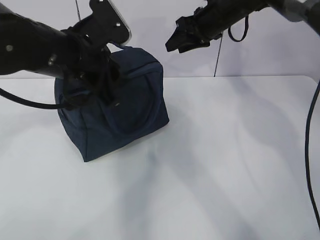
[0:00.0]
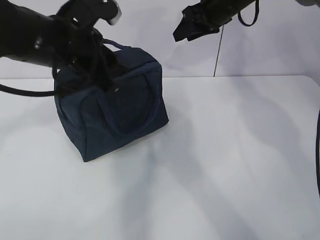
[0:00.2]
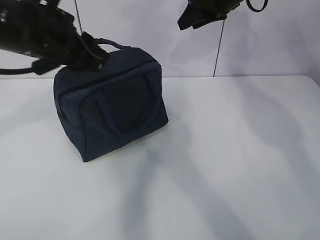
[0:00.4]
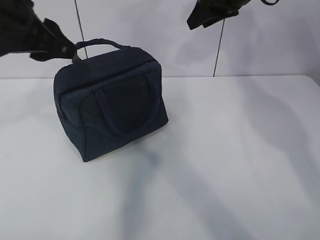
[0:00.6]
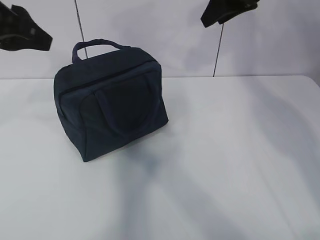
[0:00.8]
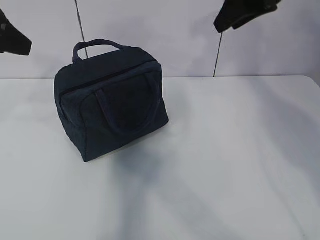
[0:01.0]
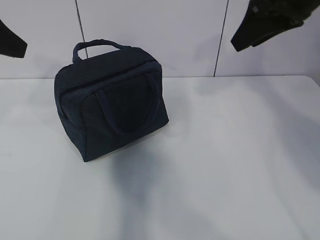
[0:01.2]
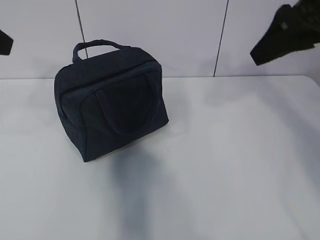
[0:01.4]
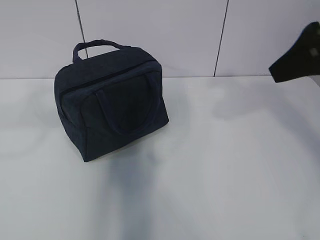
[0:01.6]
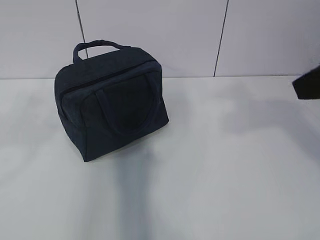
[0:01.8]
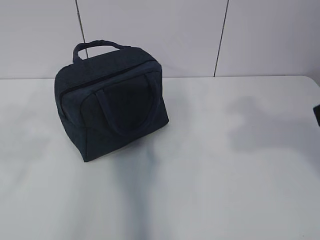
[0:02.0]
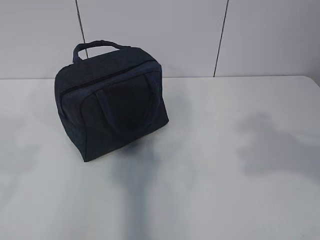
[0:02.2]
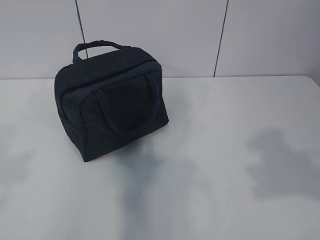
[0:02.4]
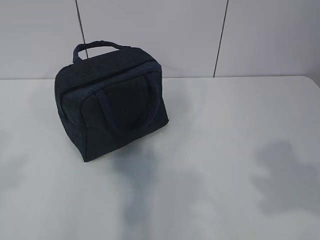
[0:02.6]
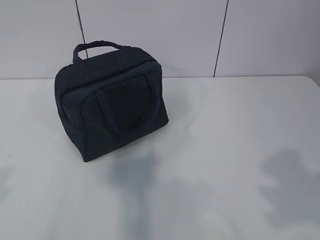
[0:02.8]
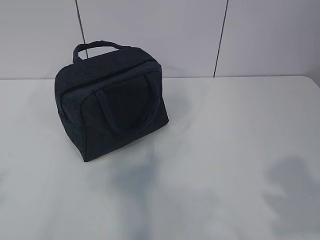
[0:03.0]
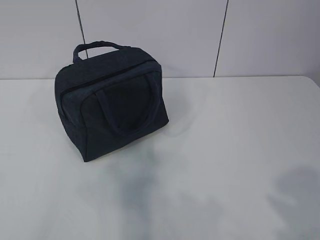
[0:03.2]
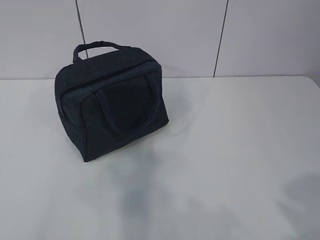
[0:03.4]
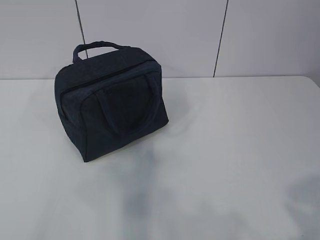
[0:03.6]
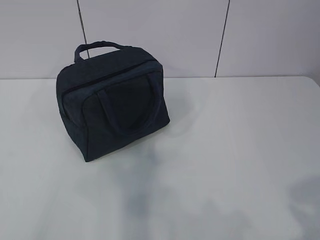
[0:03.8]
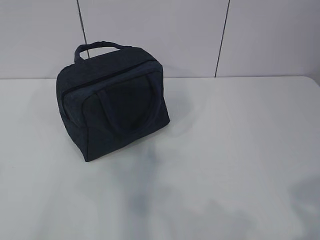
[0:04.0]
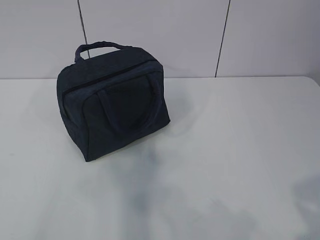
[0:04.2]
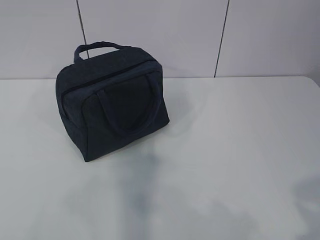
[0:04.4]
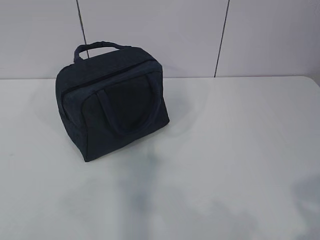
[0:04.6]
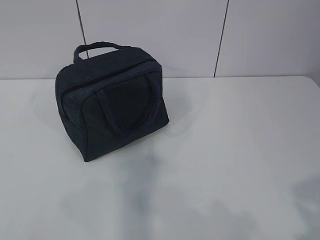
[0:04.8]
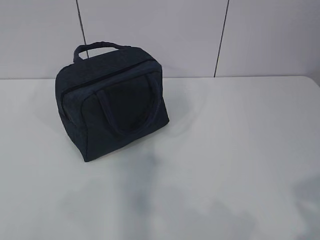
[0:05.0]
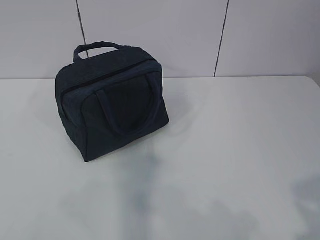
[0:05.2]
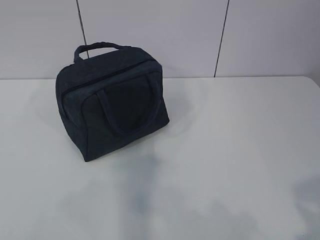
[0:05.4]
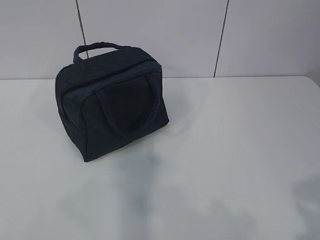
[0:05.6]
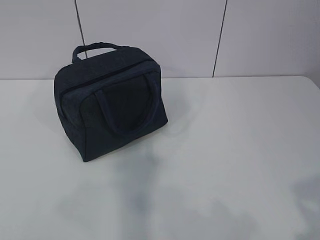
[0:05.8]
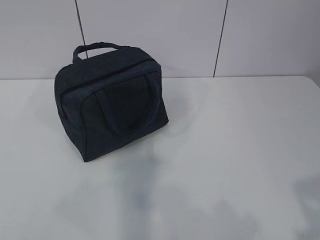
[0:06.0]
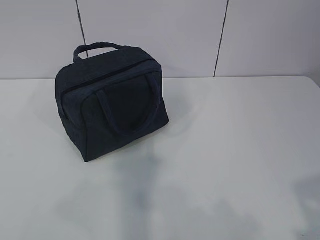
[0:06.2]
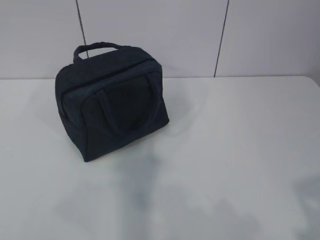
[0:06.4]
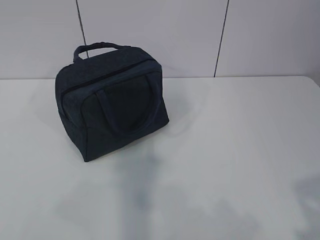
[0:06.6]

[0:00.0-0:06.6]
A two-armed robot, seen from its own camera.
0:00.0 to 0:01.6: The right gripper goes roughly 30 cm backward and upward. Meanwhile the left gripper heads to the left, backward and upward, covering some 20 cm, and opens its fingers.
0:01.6 to 0:03.2: The grippers both shift backward by some 20 cm.

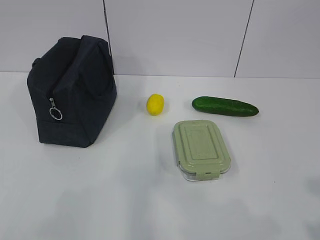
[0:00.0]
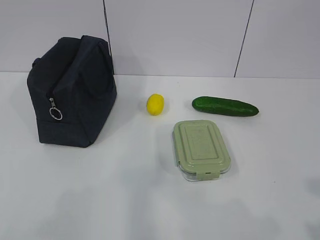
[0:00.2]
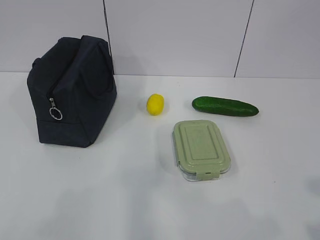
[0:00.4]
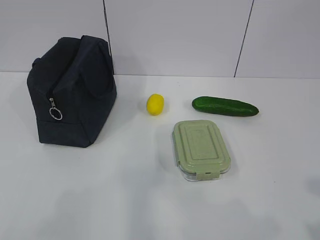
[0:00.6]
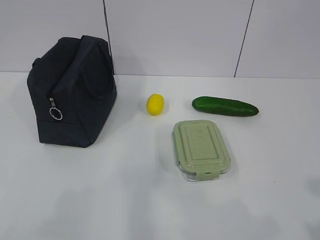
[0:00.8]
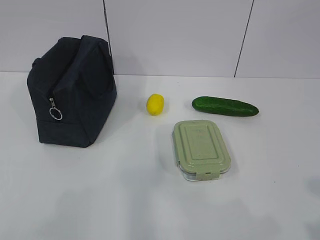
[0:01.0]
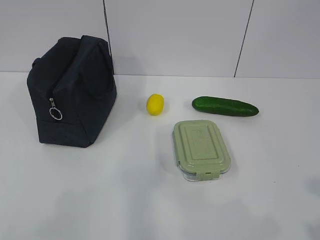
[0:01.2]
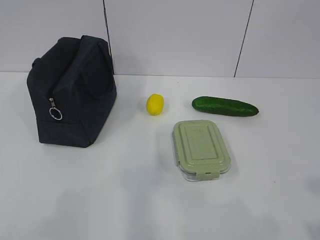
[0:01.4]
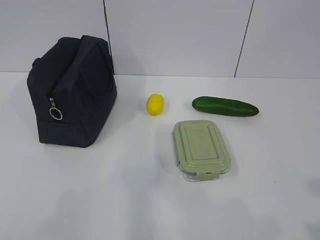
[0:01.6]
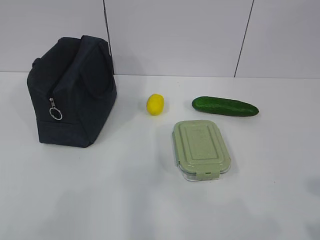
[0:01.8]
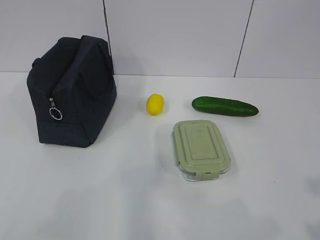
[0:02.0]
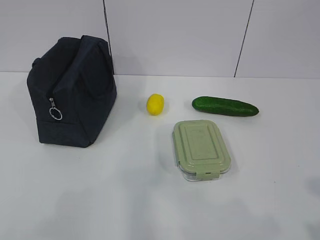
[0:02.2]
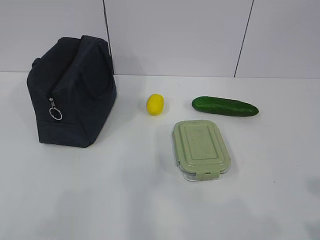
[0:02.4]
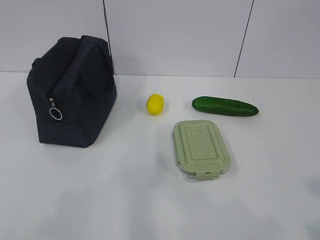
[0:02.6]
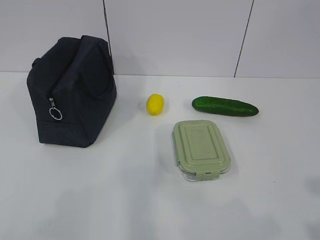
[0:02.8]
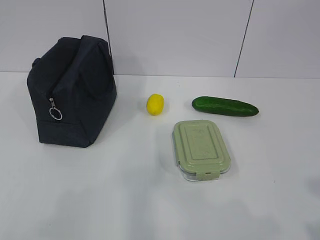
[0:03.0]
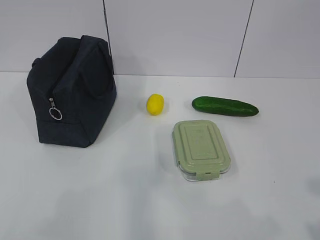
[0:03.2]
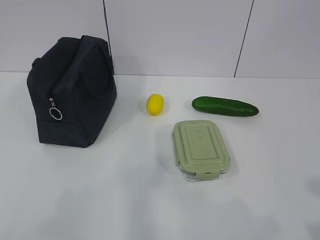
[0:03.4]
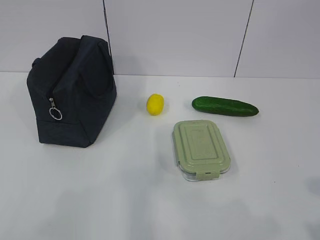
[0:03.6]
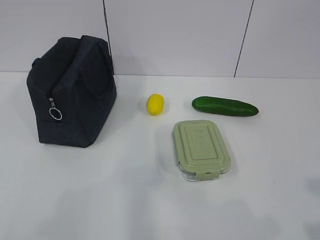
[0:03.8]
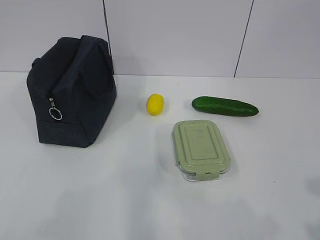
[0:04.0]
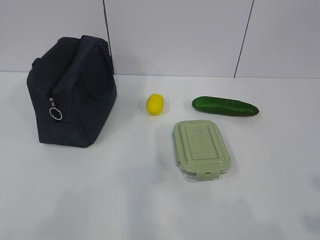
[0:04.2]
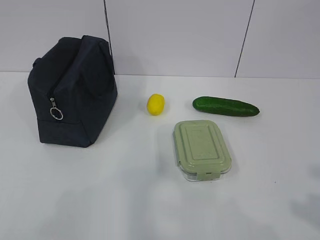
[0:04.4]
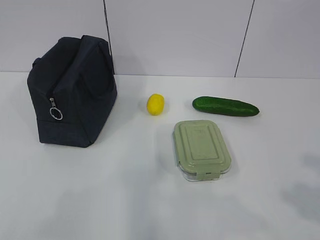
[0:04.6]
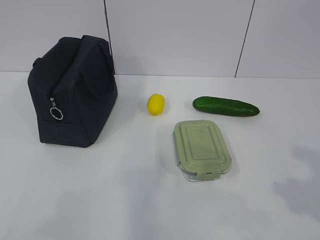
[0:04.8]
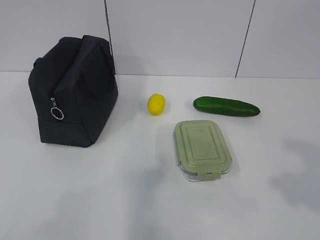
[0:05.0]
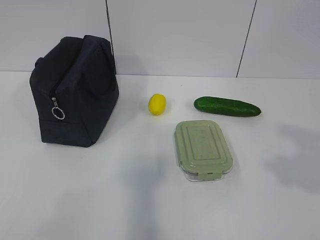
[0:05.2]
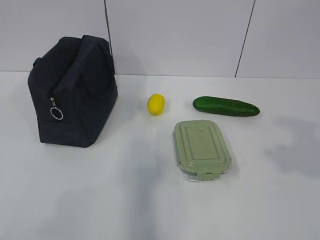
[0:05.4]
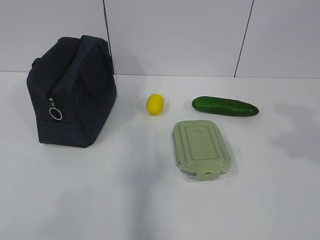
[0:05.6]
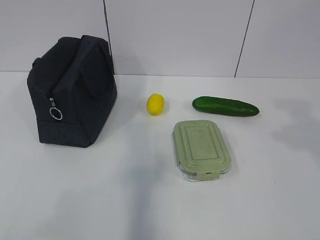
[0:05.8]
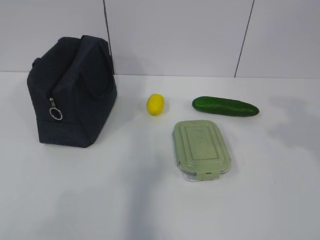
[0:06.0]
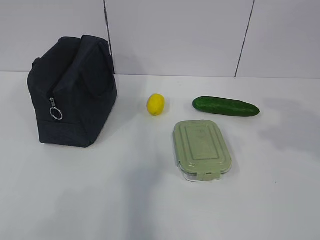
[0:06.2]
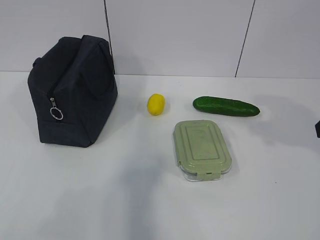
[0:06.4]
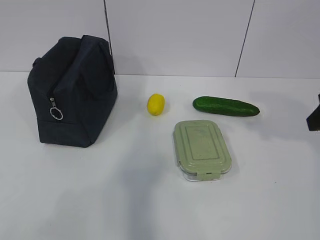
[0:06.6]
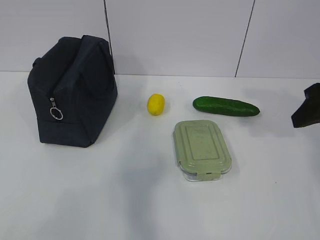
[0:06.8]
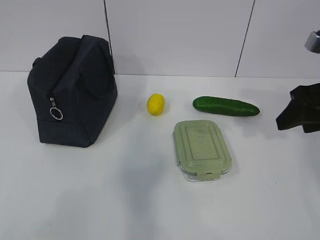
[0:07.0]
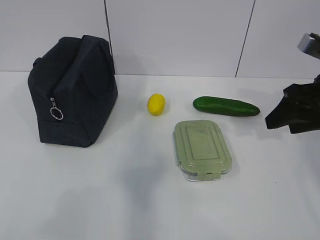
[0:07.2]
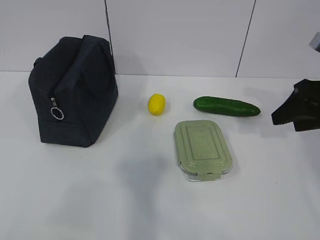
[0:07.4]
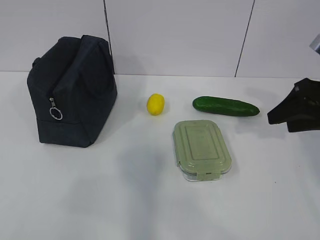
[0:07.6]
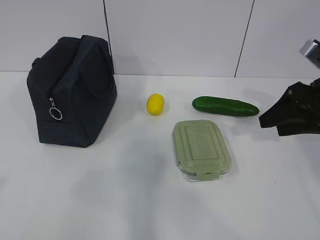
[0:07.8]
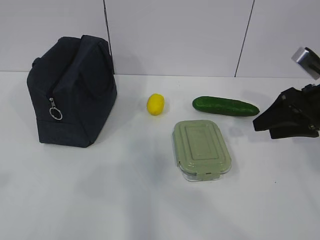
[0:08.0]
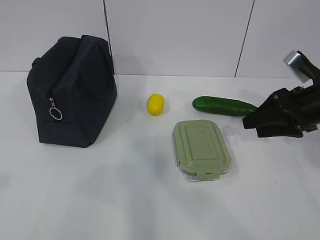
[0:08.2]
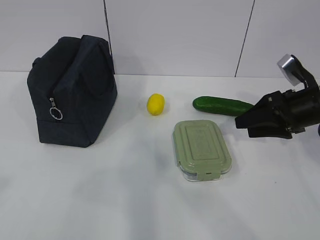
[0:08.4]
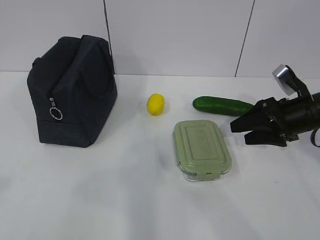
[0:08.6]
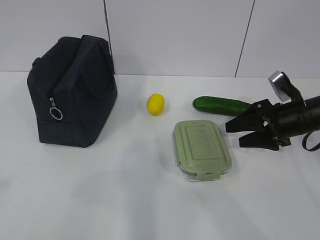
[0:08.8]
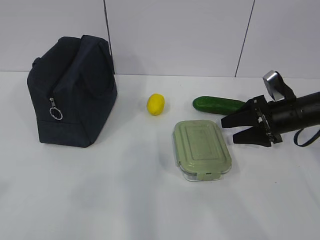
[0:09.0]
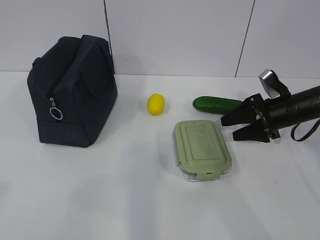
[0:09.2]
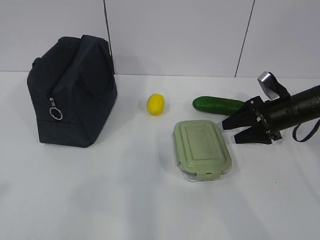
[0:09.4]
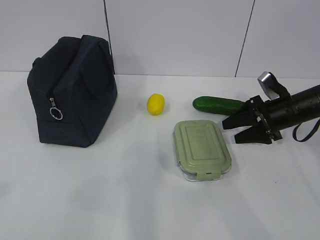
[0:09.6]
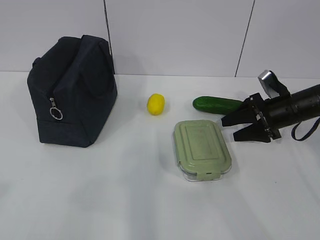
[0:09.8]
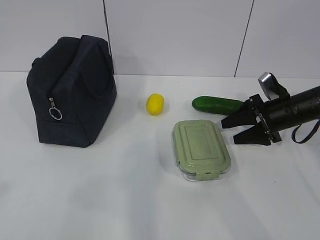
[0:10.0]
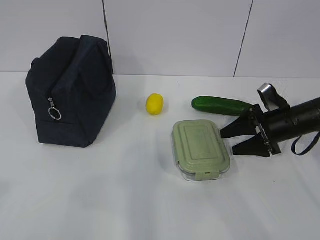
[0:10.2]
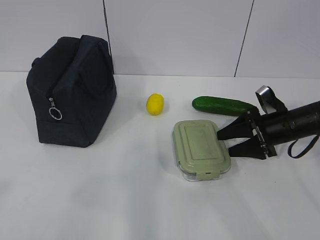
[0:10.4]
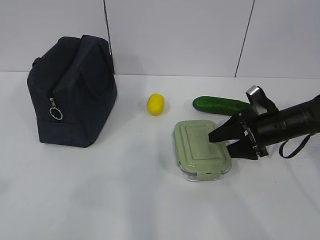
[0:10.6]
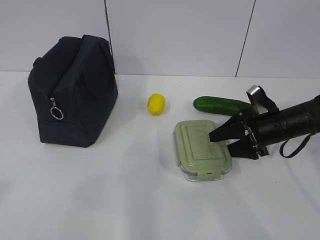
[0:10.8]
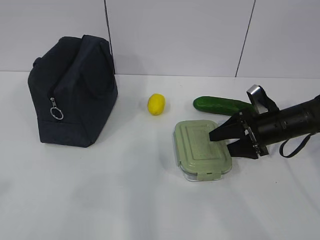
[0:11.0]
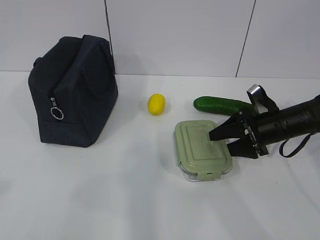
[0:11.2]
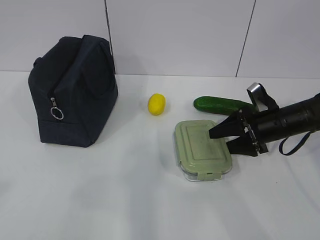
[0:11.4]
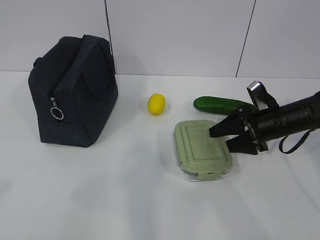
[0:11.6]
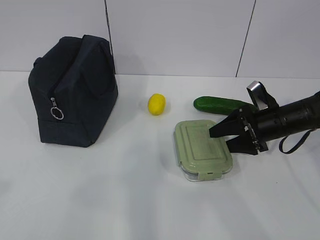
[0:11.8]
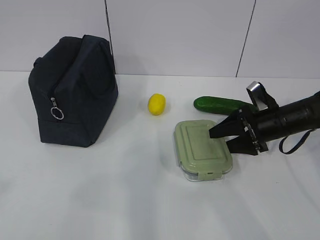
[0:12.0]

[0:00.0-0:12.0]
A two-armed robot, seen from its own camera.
0:01.6 to 0:03.0: Both grippers stay about where they are.
0:06.0 to 0:07.6: The right gripper shifts approximately 15 cm forward and downward.
0:07.6 to 0:09.0: The right gripper is displaced downward and forward by roughly 15 cm.
0:09.0 to 0:12.0: The grippers make only small movements.

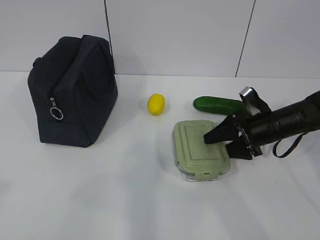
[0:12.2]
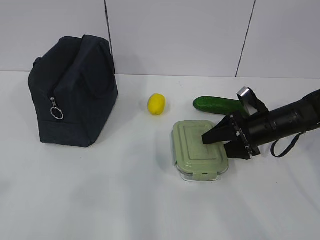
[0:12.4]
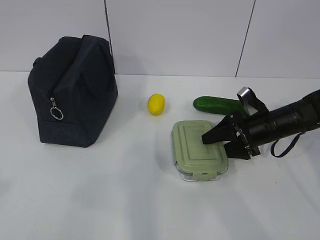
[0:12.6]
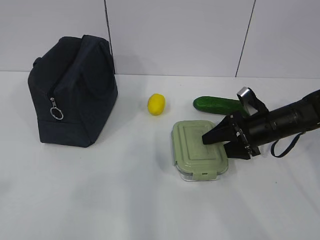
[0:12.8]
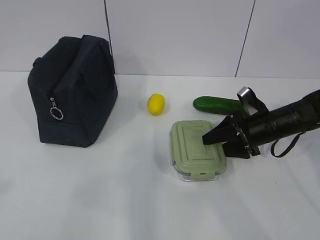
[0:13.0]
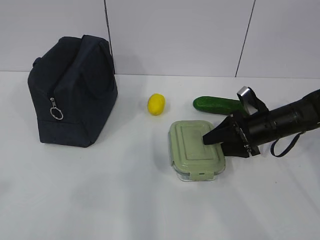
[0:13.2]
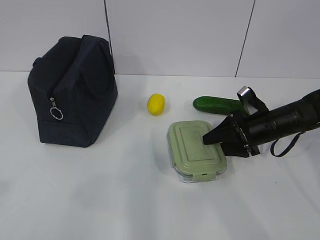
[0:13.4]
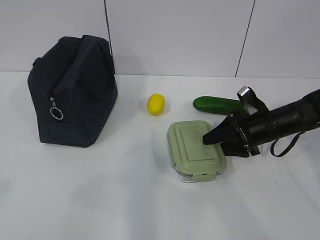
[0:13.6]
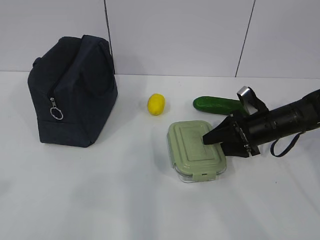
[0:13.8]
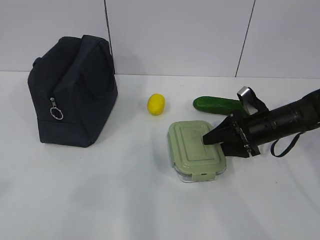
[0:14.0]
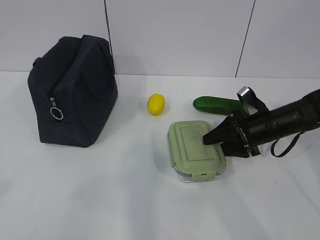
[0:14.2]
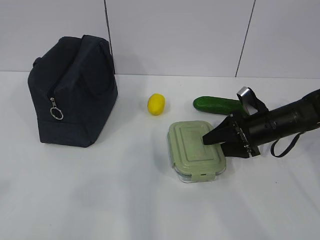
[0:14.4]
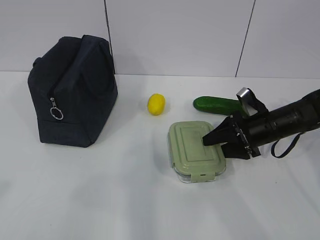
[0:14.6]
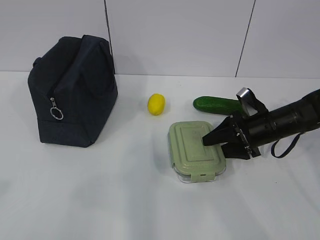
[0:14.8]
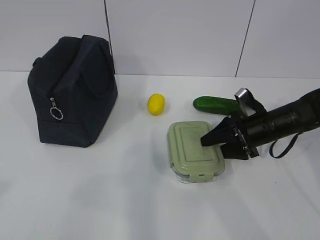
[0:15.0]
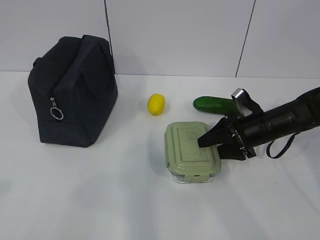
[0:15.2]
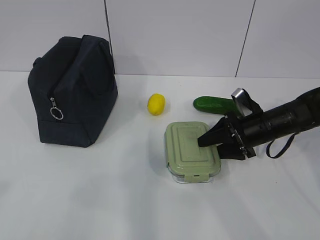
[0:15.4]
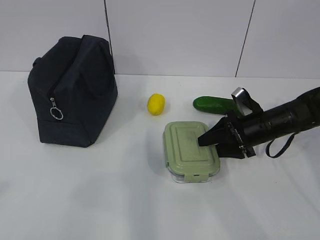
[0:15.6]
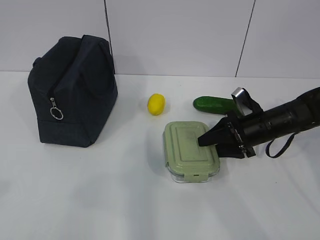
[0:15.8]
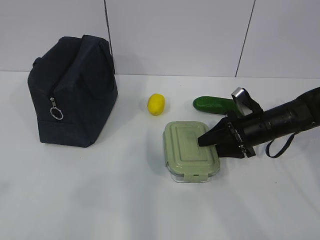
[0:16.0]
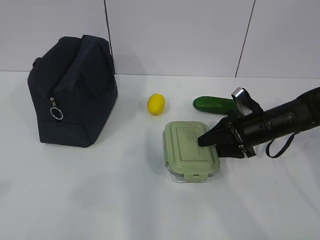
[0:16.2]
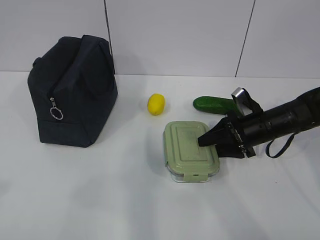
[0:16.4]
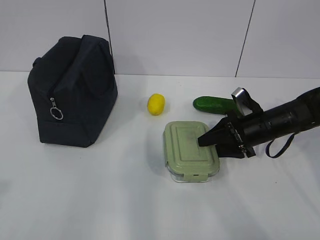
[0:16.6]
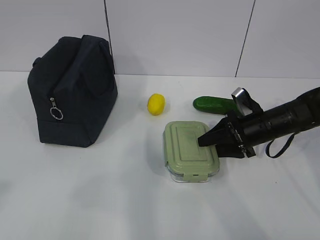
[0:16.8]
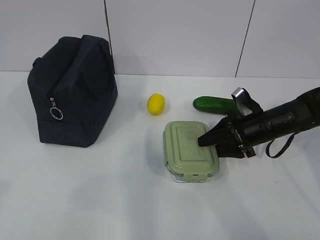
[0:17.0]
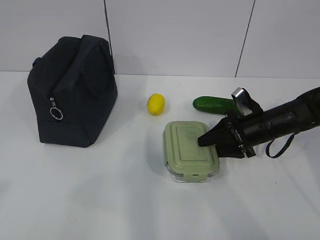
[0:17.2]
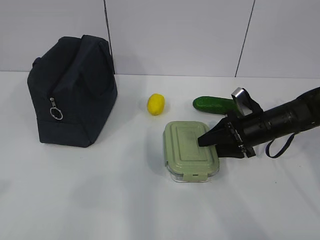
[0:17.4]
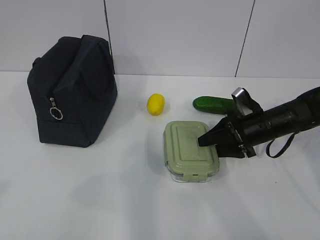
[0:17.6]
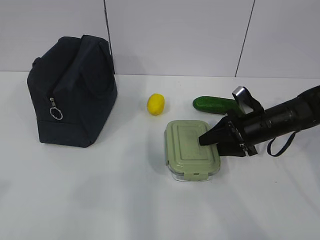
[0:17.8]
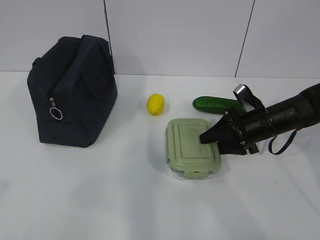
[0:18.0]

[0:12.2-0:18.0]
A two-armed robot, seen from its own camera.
Step, 0:12.2 to 0:15.4: Grab the lunch box with your right hand.
0:12.2 to 0:15.0: The two grippers keep their place.
0:15.0 to 0:18.0: Neither gripper changes place.
